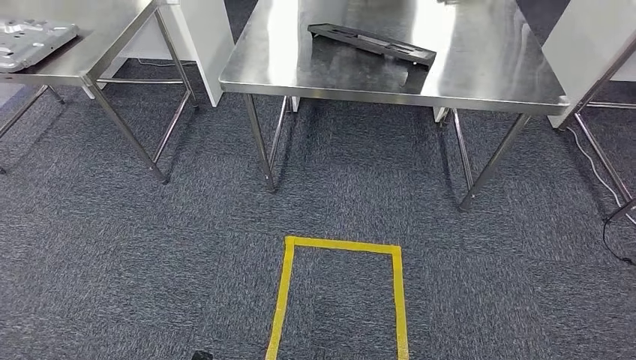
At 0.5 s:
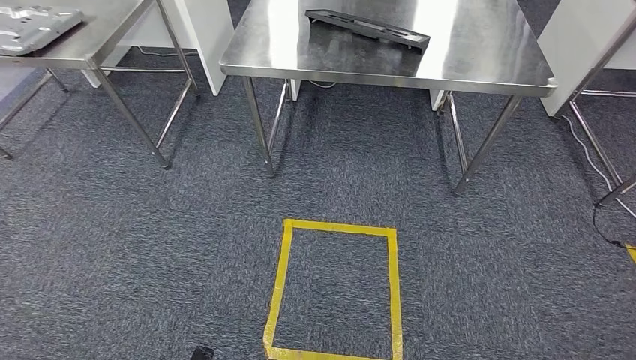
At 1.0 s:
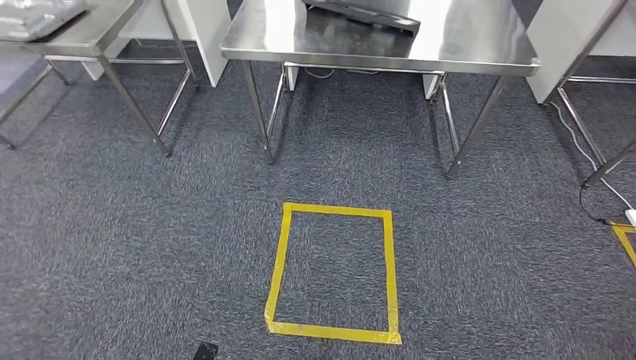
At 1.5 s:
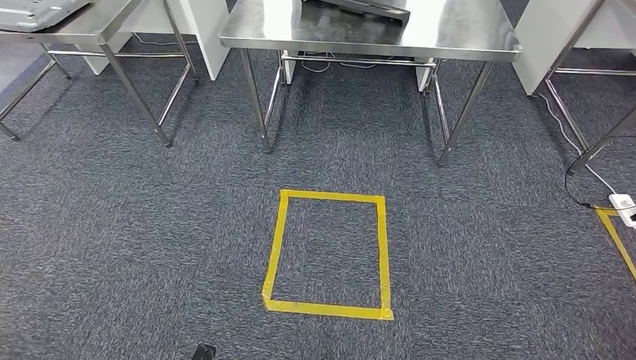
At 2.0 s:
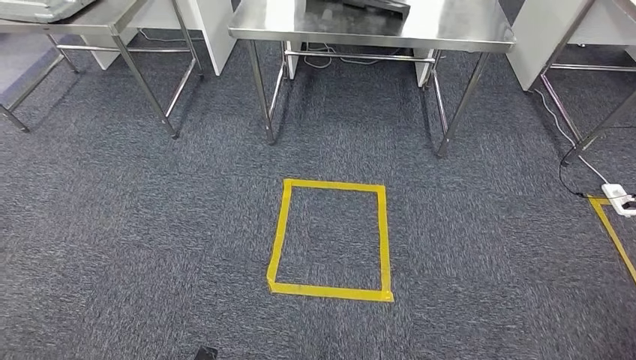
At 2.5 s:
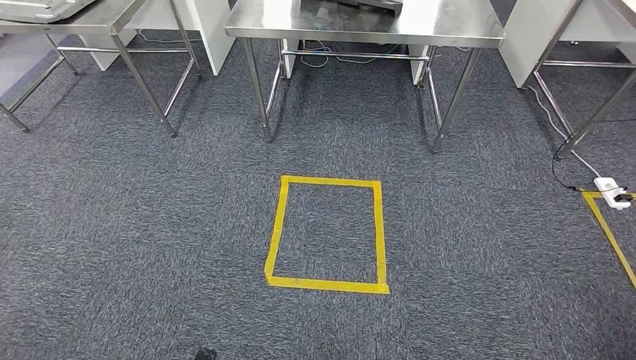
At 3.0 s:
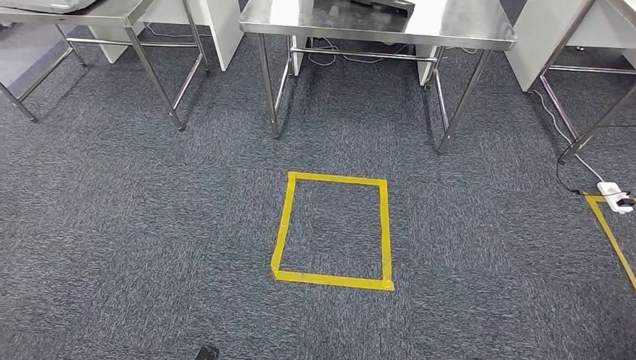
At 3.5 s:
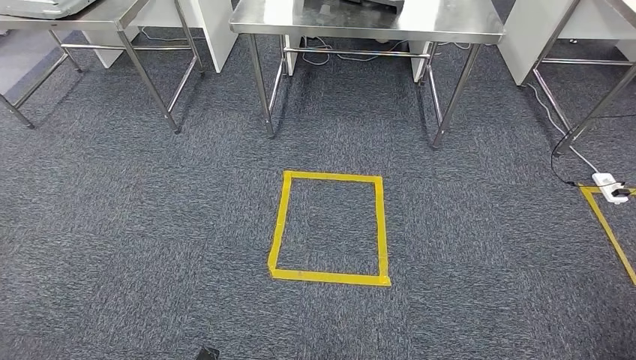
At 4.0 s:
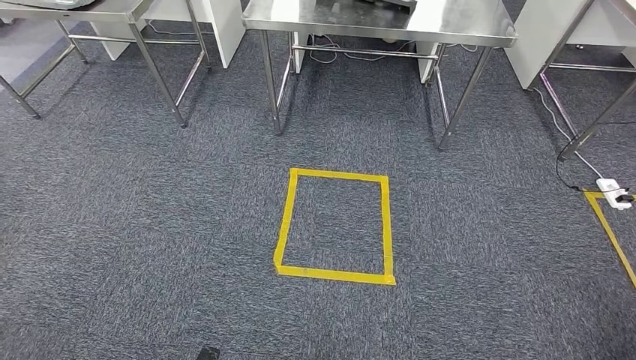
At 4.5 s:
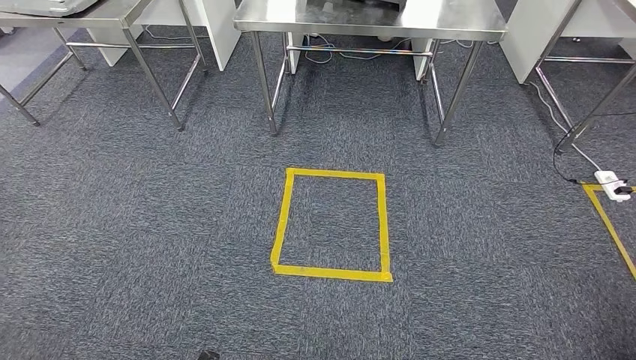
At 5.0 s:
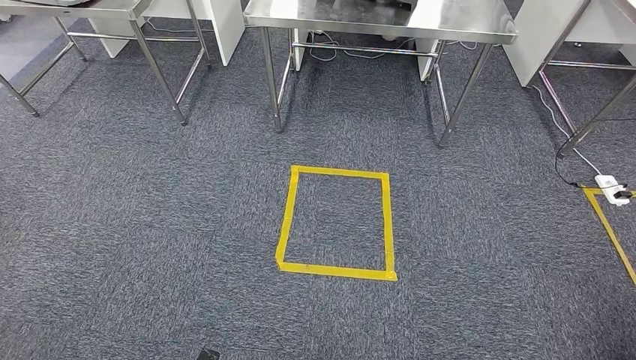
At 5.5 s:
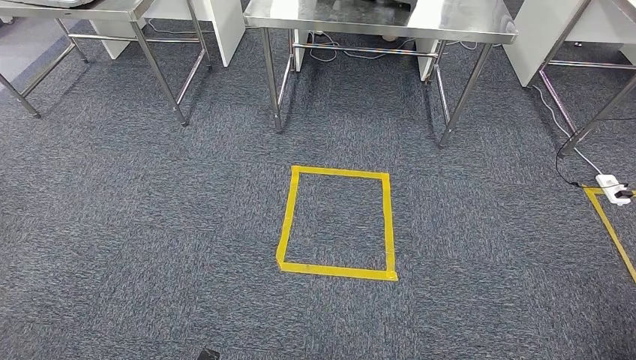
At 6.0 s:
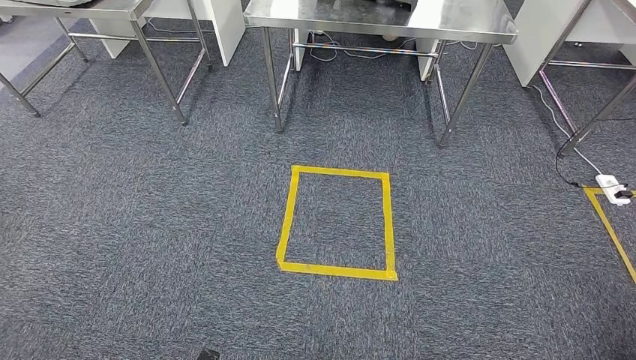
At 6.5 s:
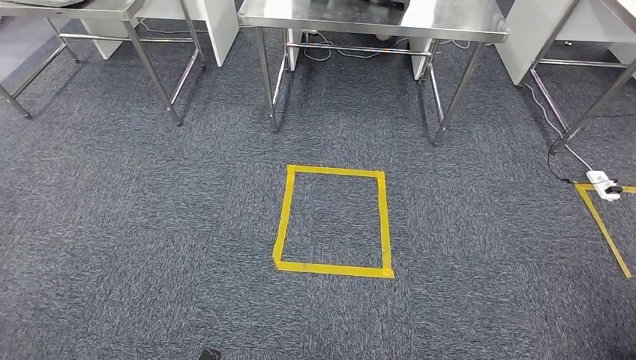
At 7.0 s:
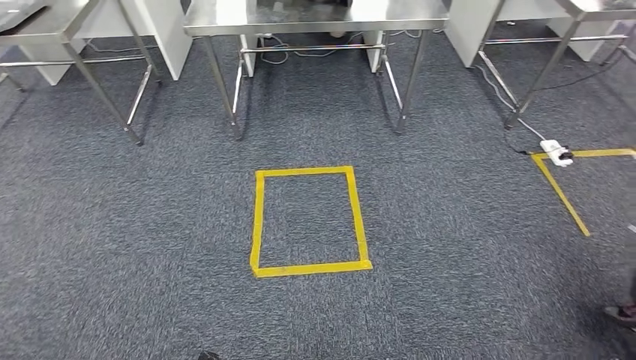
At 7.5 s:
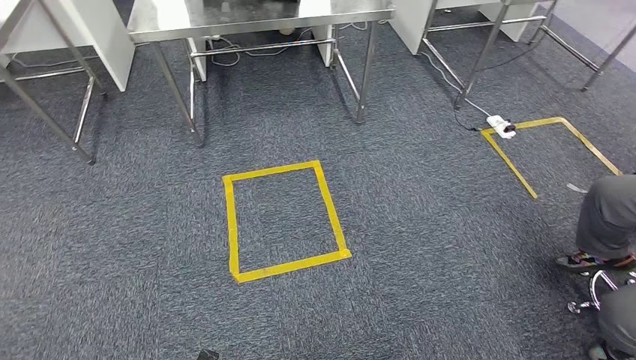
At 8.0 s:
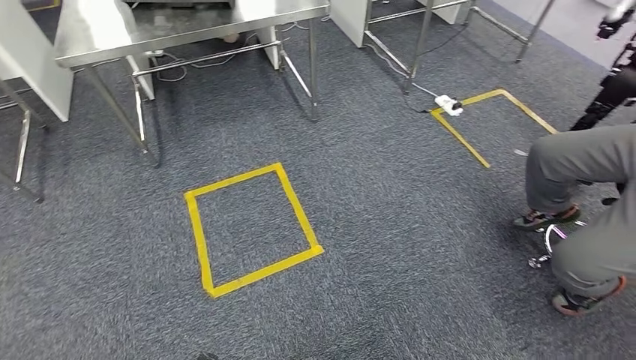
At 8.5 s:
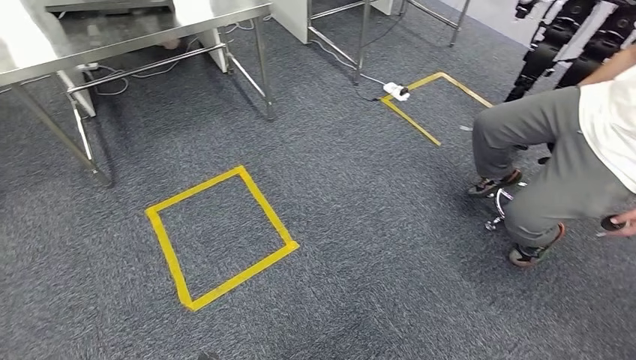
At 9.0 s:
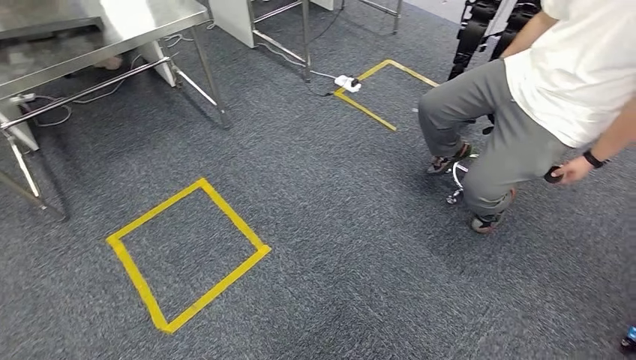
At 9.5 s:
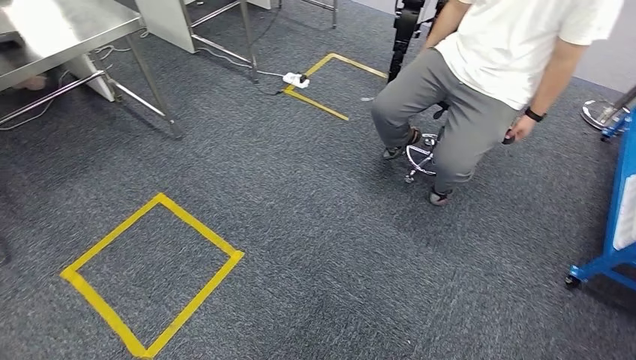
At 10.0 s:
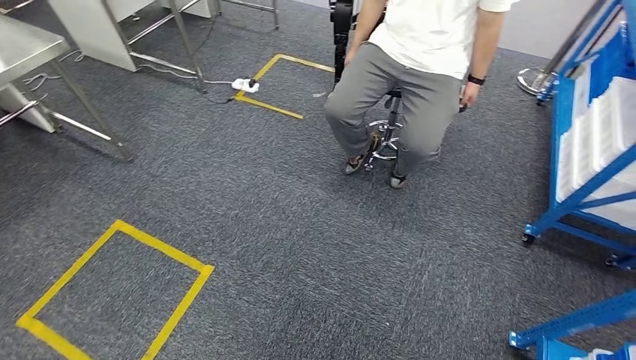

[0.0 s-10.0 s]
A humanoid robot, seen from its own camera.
2.0 to 6.0 s: Both hands stay about where they are.

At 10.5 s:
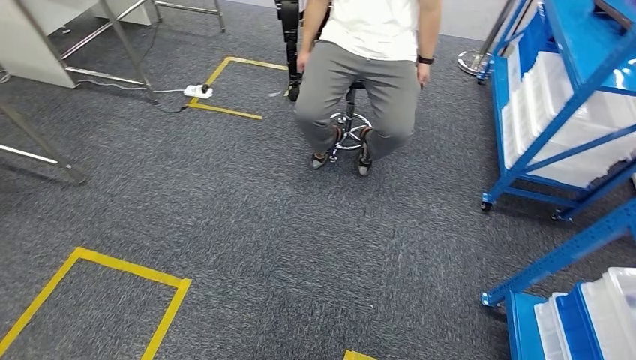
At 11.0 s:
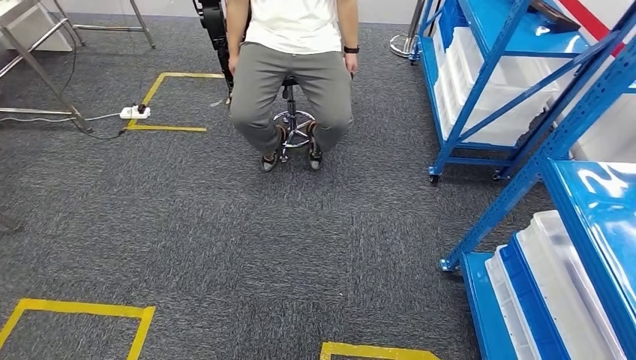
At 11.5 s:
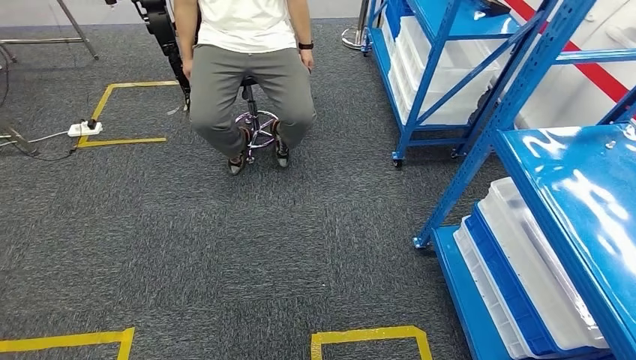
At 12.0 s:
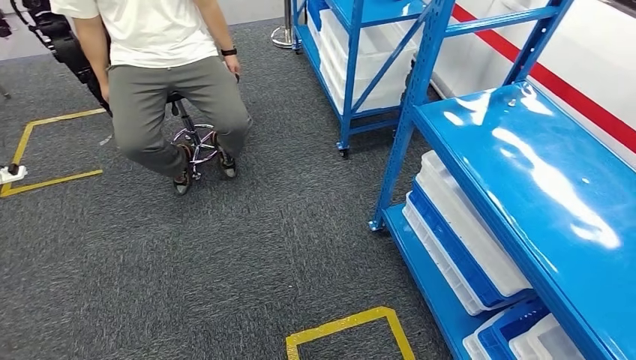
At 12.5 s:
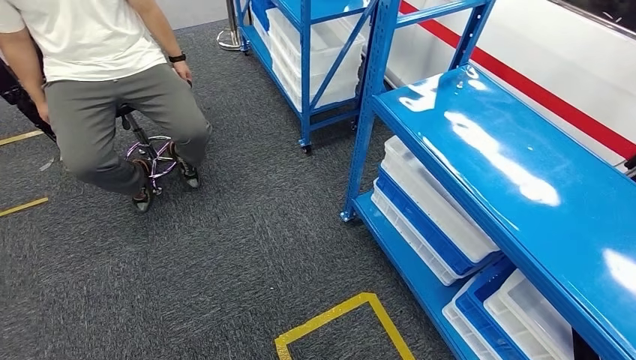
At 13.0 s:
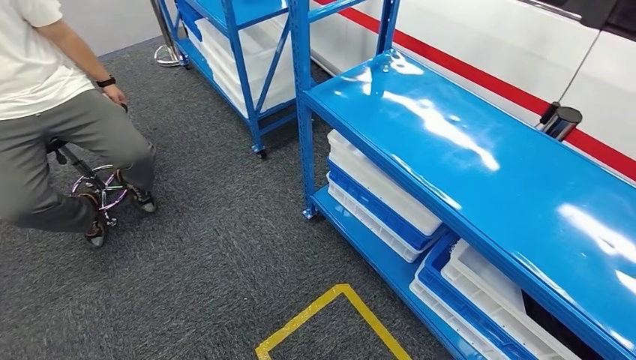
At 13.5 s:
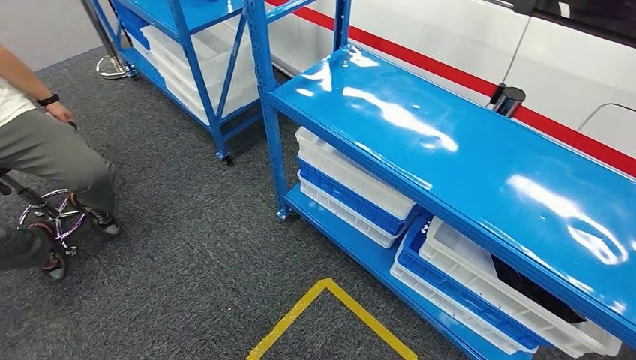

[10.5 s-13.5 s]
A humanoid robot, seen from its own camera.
Step, 10.5 to 13.5 s: Return to the initial position at the shelf.
